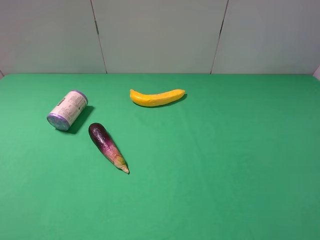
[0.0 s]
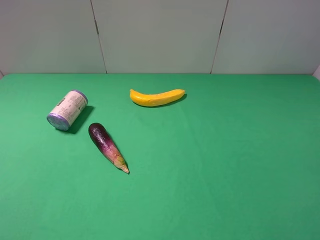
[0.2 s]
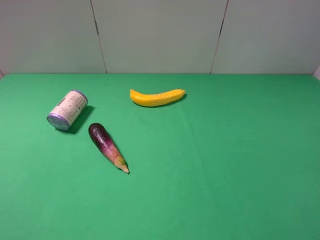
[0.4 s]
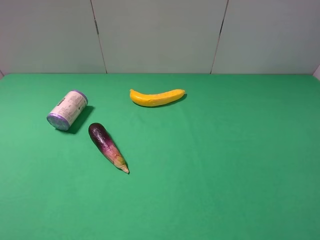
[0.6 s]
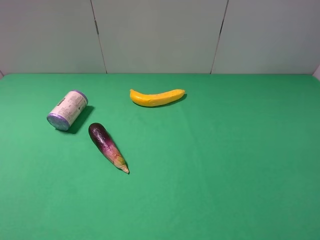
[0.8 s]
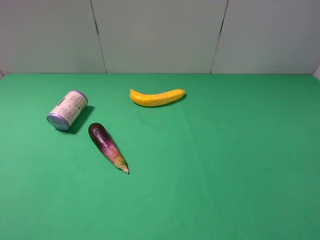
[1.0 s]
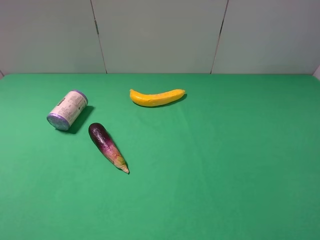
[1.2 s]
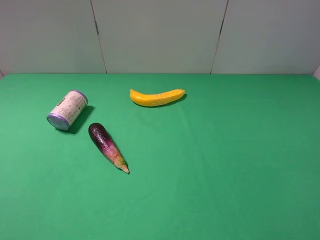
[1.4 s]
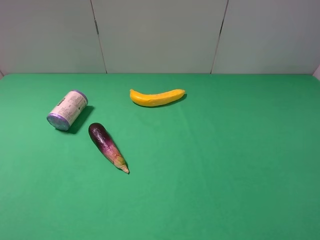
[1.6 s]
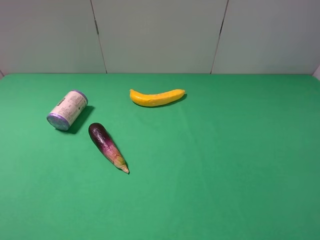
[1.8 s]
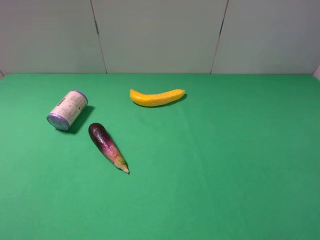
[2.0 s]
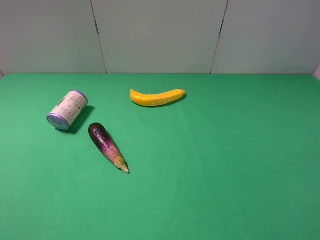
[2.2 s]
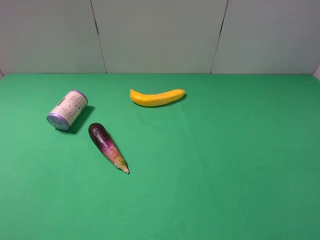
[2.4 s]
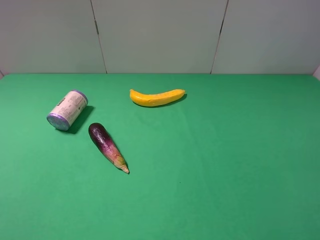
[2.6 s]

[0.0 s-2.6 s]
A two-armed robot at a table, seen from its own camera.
Task of the whole recording: use the right gripper to pick up the item and transfer it from the right gripper to the left gripper.
1.2 to 2.6 s: Both grippers stay about where they are.
